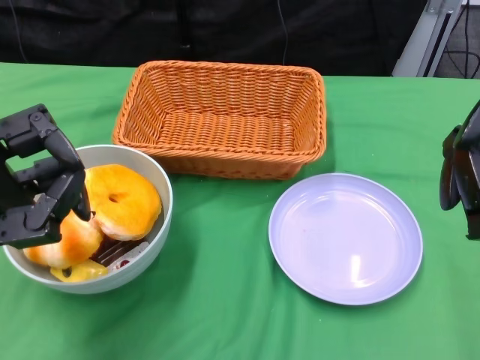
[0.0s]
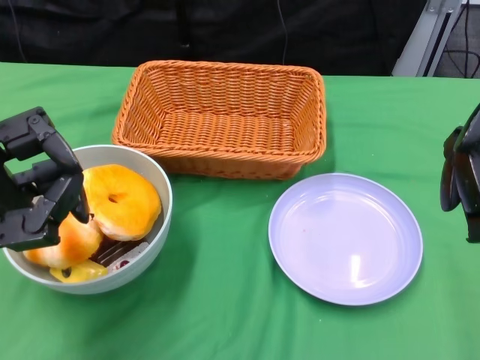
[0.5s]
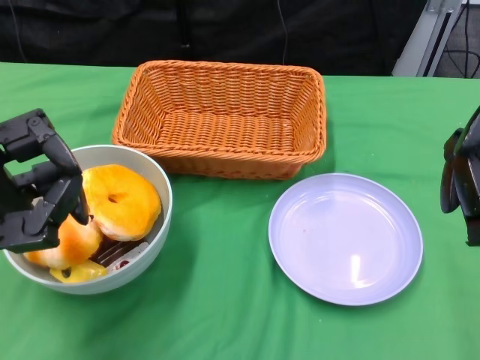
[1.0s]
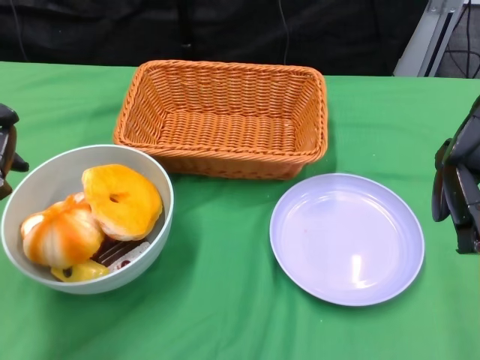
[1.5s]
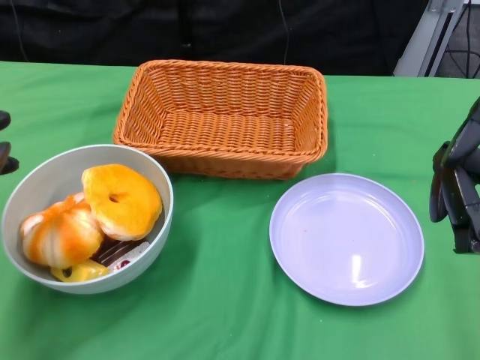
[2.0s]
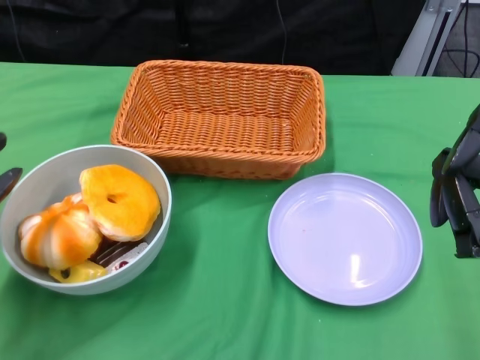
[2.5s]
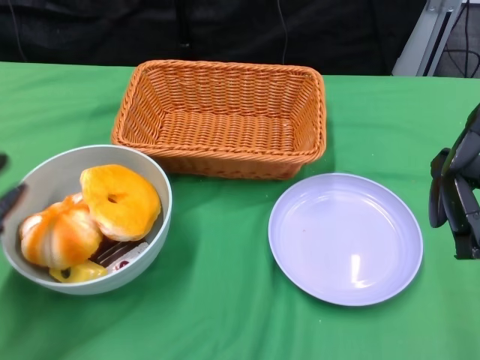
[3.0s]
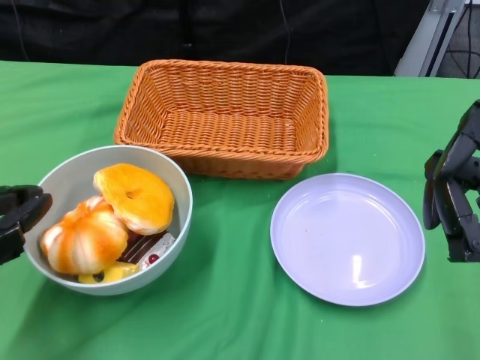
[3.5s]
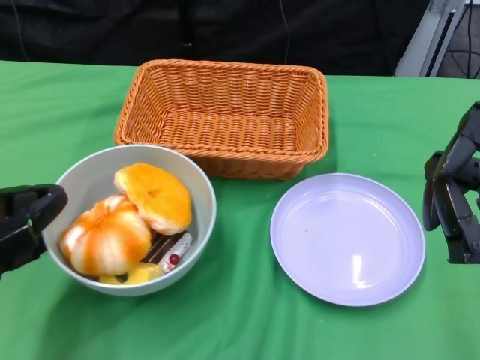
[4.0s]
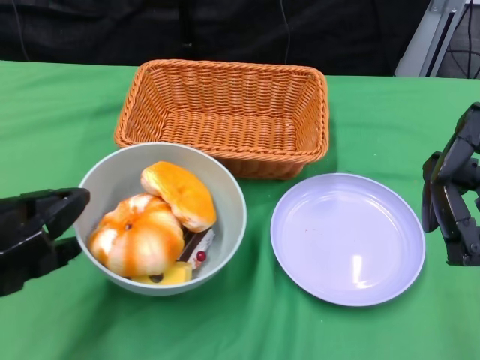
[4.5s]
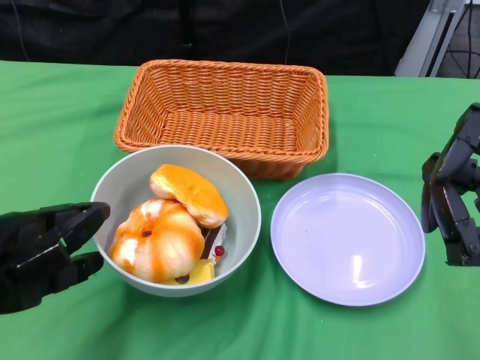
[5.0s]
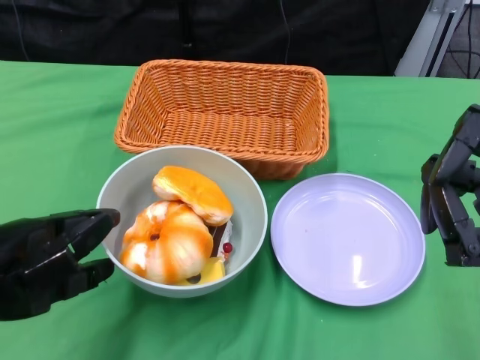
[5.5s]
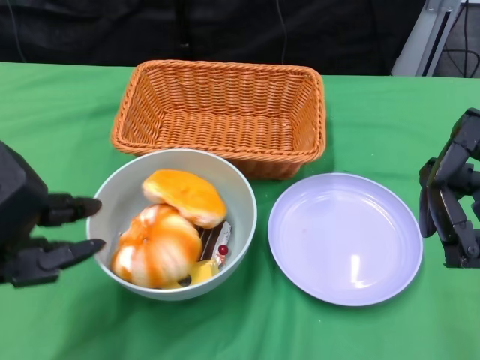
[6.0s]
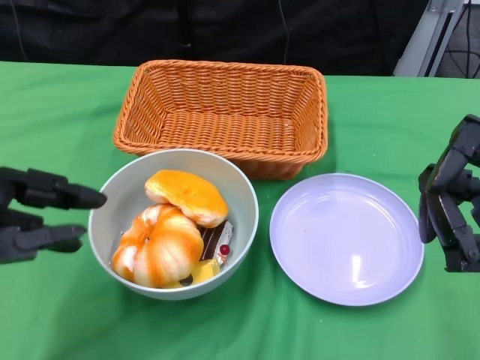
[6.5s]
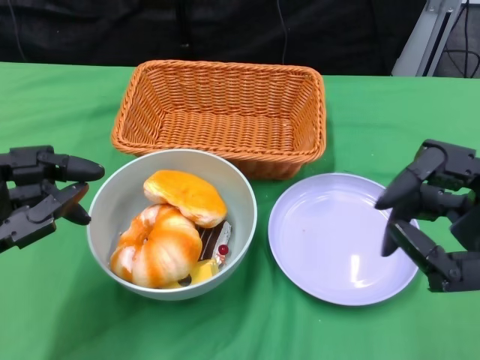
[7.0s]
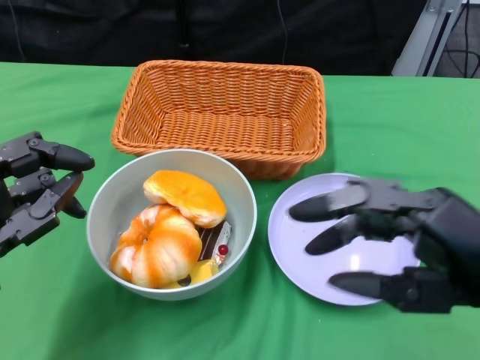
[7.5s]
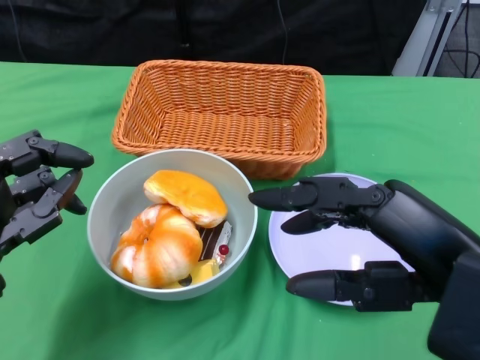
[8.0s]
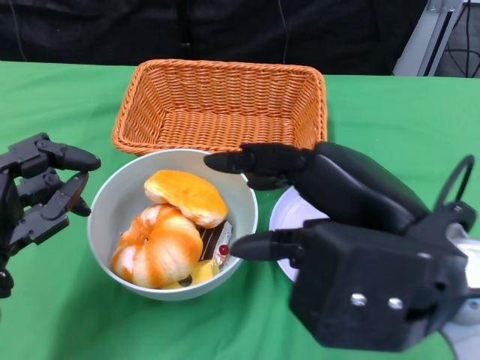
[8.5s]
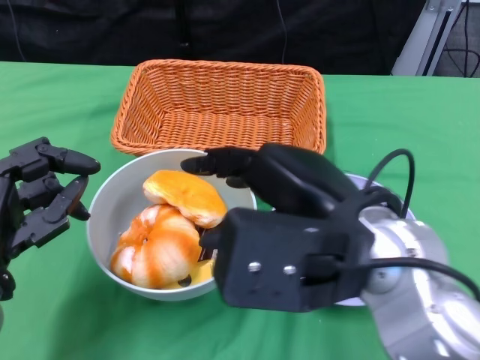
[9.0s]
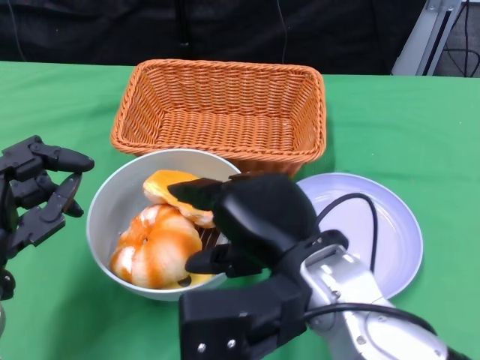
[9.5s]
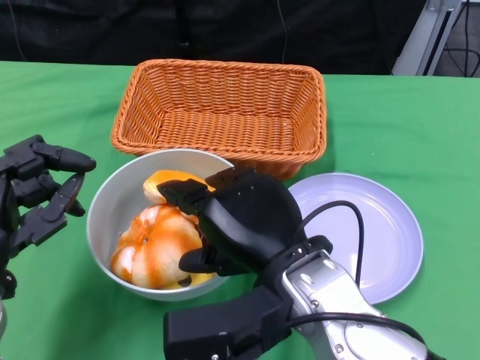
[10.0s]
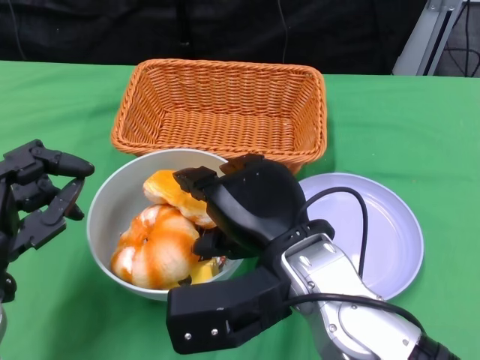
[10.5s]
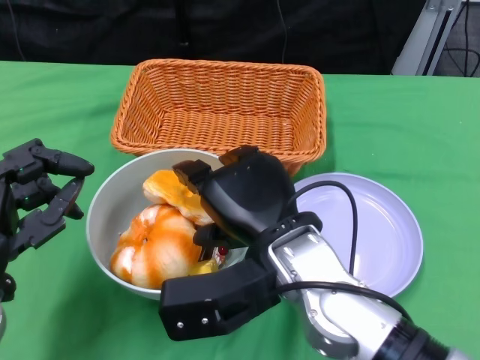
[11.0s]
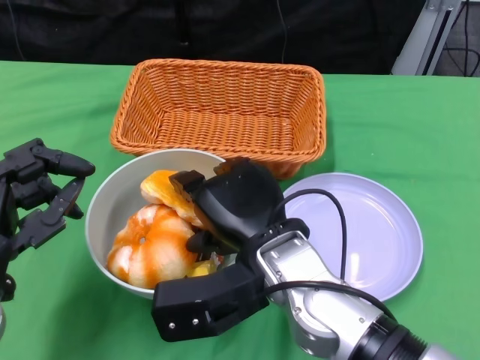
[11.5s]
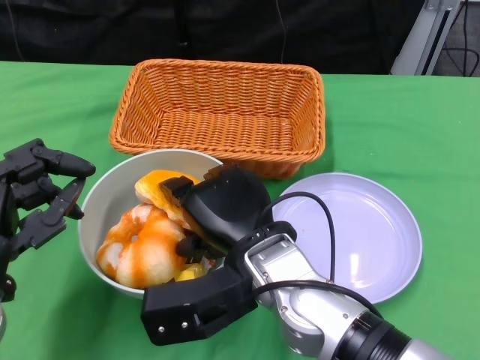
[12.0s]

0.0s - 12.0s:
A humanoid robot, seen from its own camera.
Step, 0.0s - 5.0s: Push the bowl to the center of the table using the left gripper.
6.0s - 8.0s: The right hand moves to the left and upward, approximately 10 cm. The left hand goes some 5 cm downward.
8.0s - 10.0s: The right hand travels to the left, downward and forward by approximately 15 cm.
10.0s - 12.0s: The right hand shifts by roughly 5 cm.

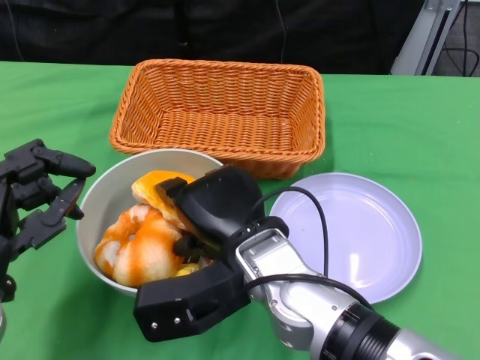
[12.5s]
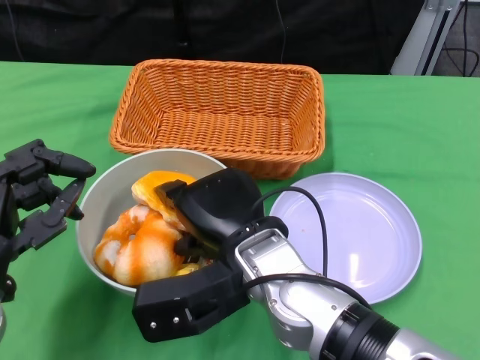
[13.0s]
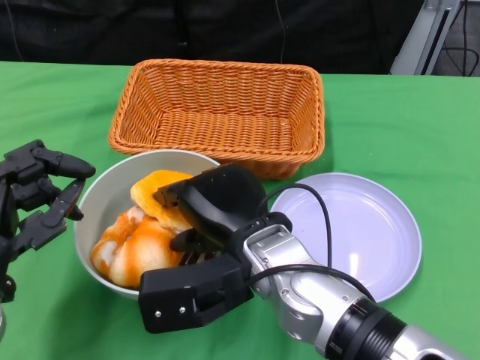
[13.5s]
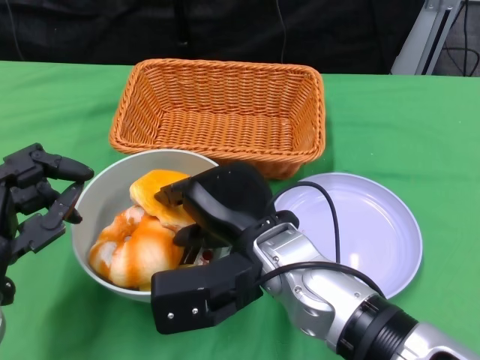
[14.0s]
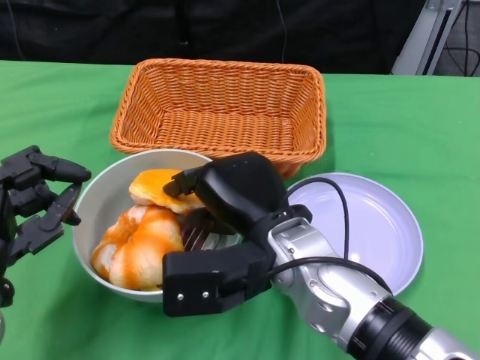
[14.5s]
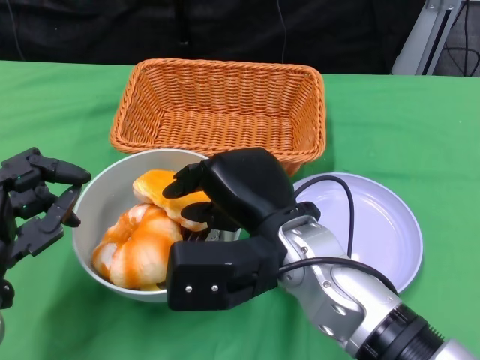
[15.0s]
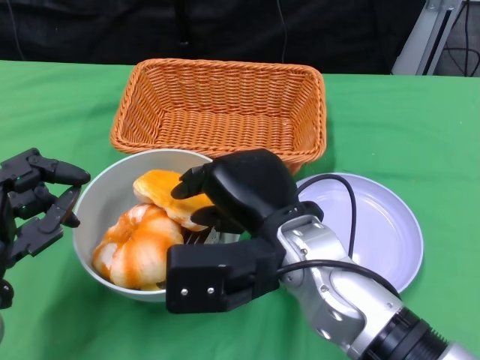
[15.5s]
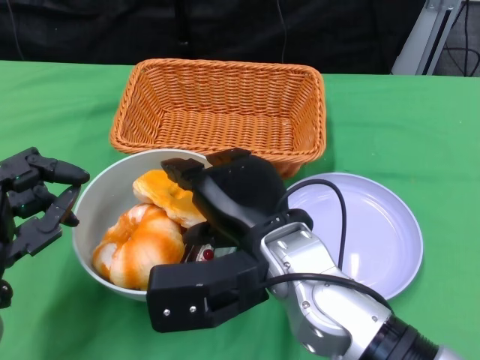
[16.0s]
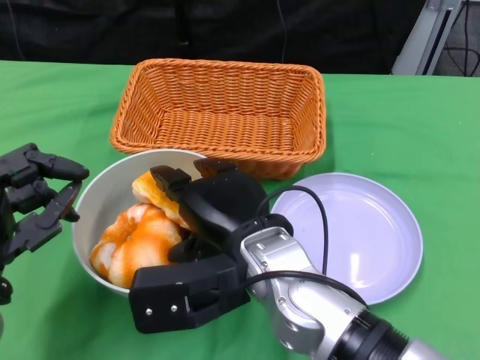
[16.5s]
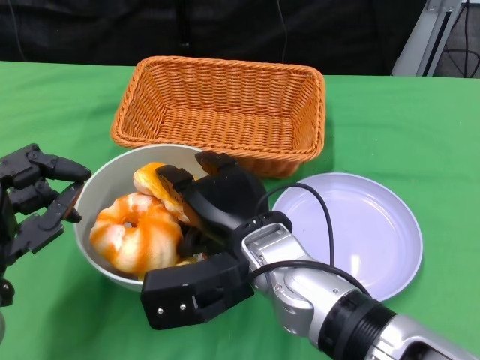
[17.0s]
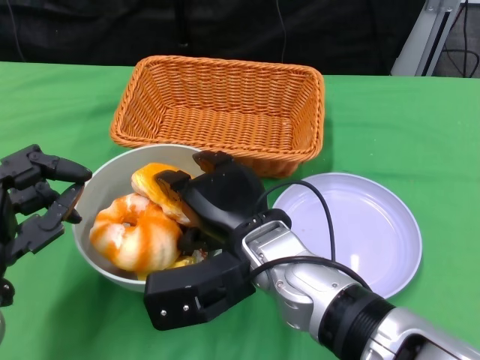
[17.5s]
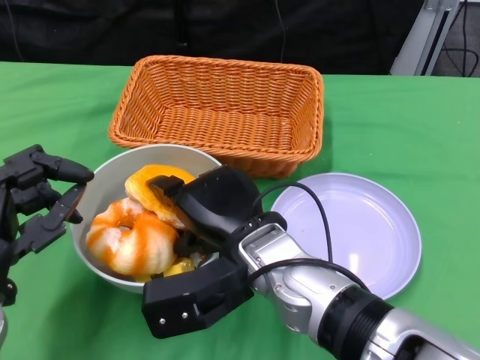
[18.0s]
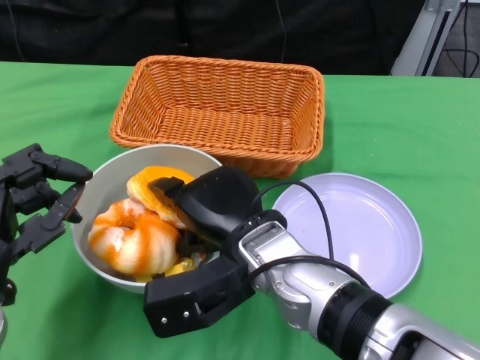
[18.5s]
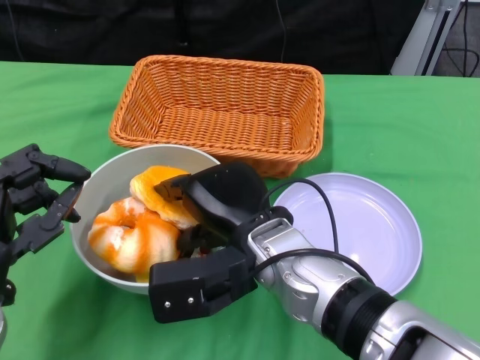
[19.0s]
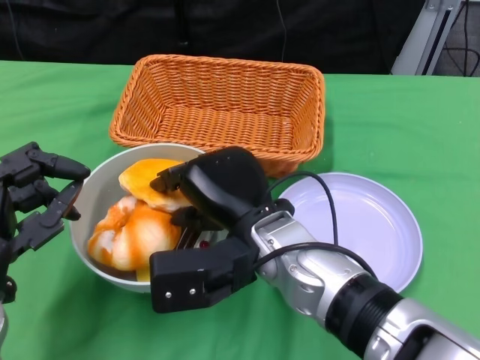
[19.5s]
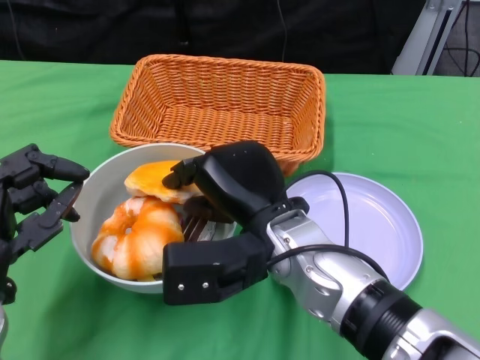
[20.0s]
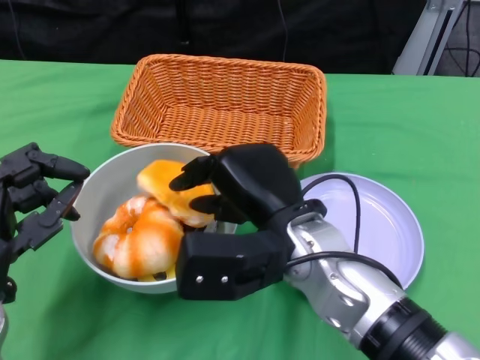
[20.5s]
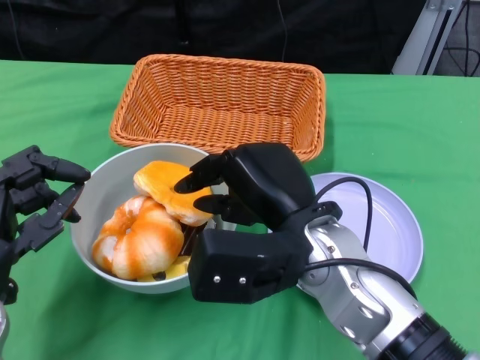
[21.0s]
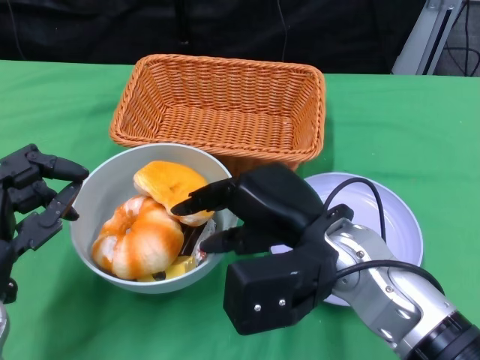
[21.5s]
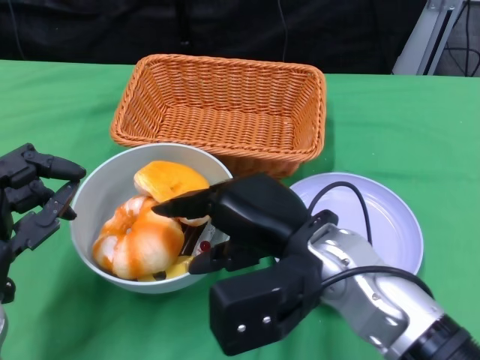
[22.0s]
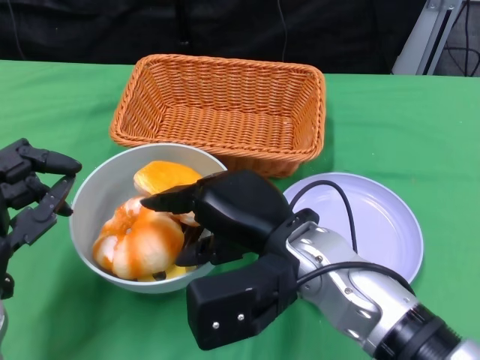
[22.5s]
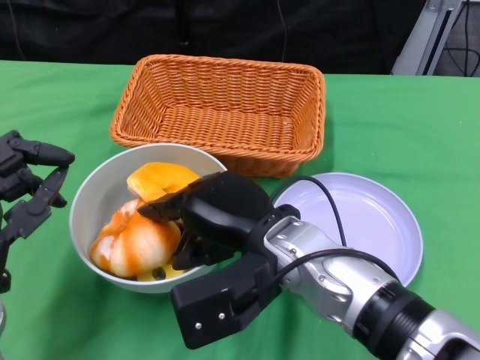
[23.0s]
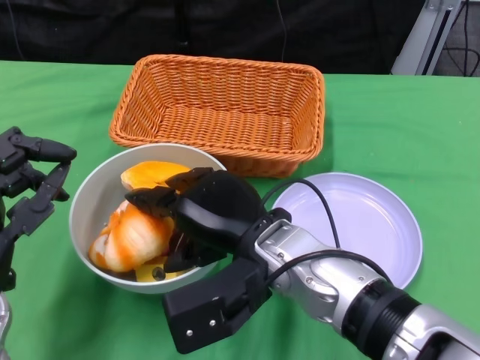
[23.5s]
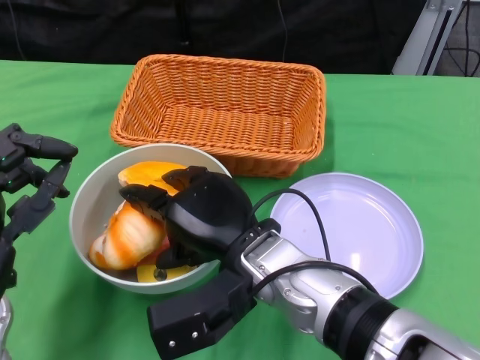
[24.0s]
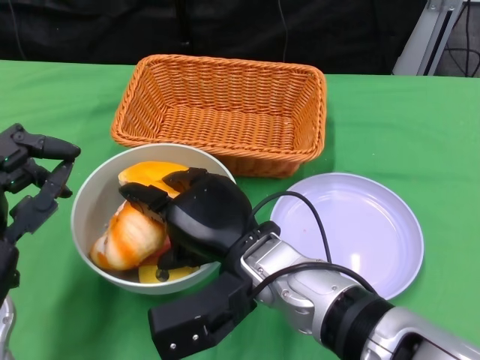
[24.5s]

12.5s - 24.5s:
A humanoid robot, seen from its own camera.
14.5s - 18.5s: The hands stay close to where they were, moving slightly.
20.5s - 22.5s: The hands stay close to where they were, moving slightly.
22.5s - 24.5s: The right hand ends up roughly 5 cm from where it was.

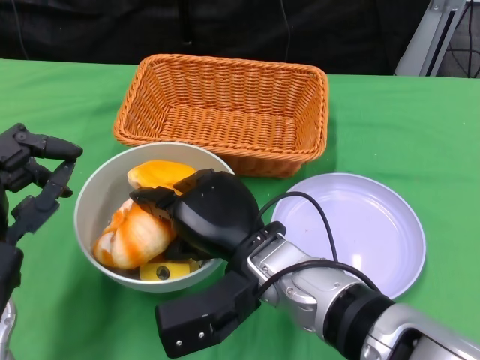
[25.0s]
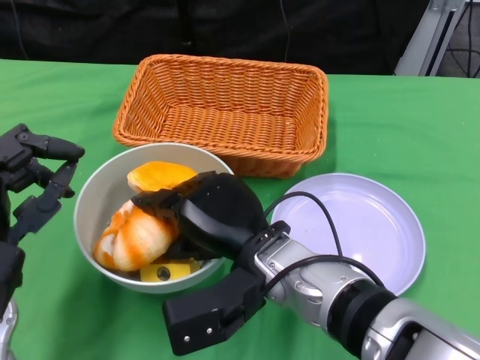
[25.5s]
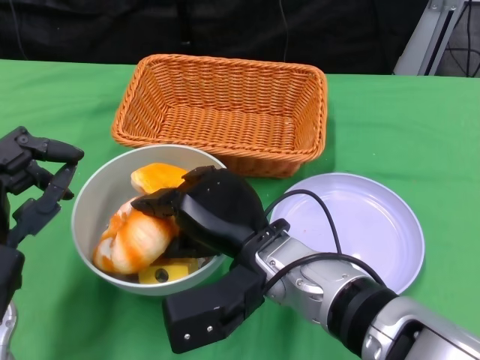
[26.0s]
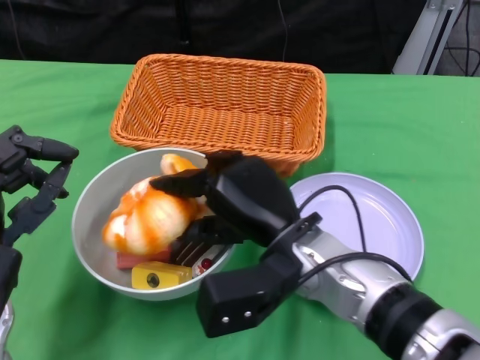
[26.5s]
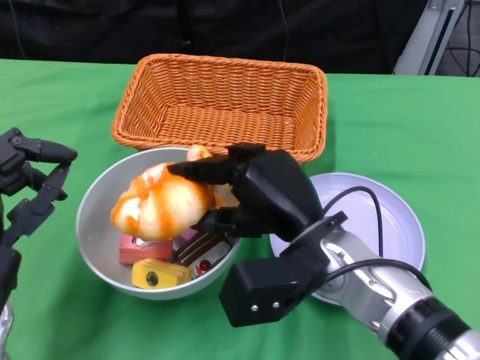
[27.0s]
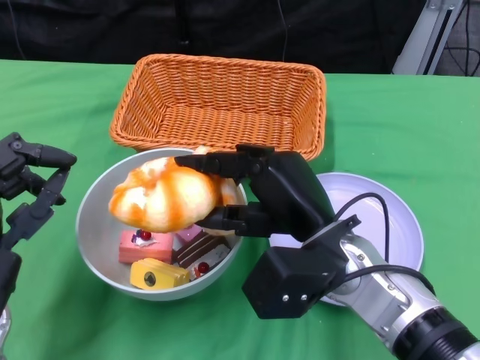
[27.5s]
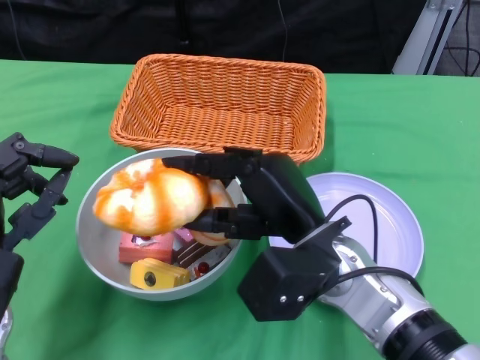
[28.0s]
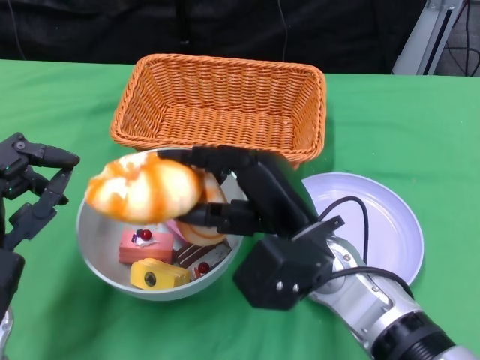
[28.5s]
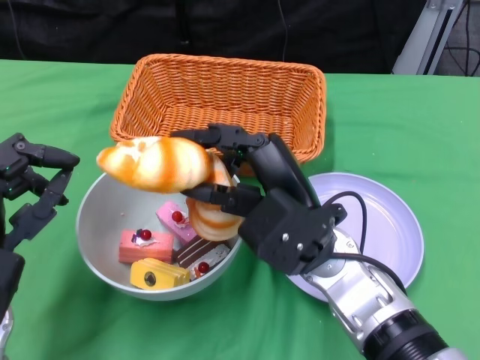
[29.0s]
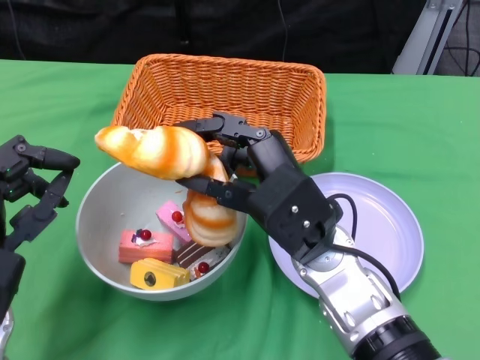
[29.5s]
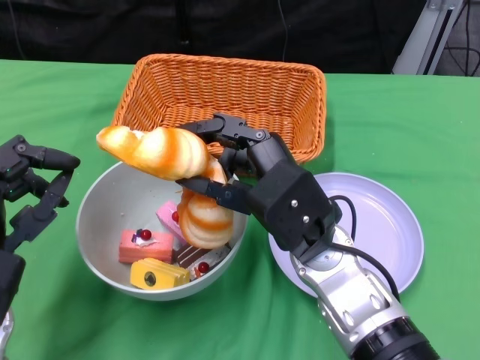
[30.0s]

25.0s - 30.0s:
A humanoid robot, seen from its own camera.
25.0s - 27.5s: The right hand shifts approximately 5 cm to the right.
